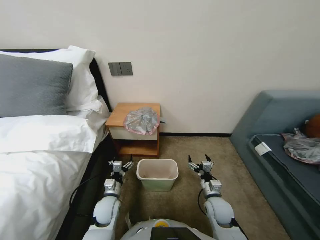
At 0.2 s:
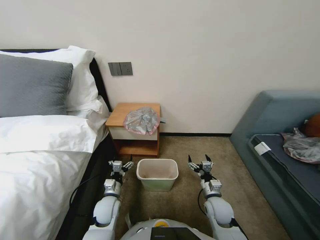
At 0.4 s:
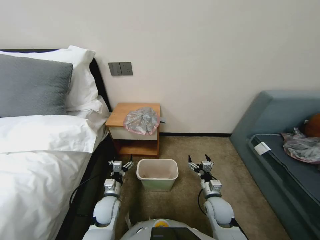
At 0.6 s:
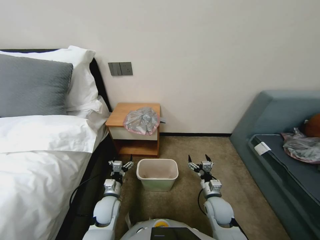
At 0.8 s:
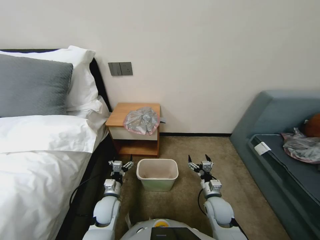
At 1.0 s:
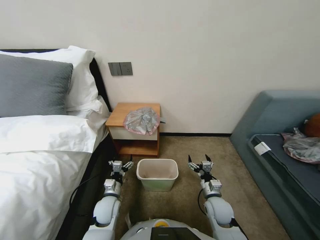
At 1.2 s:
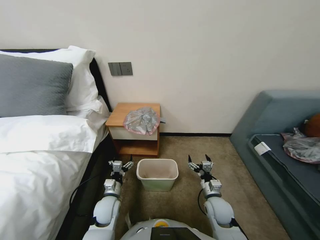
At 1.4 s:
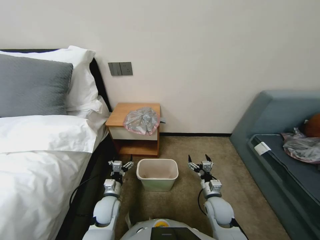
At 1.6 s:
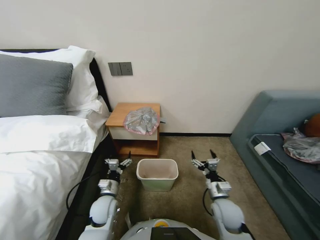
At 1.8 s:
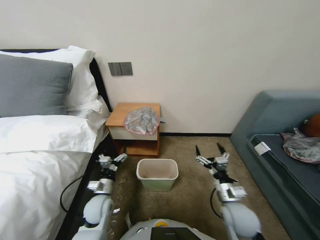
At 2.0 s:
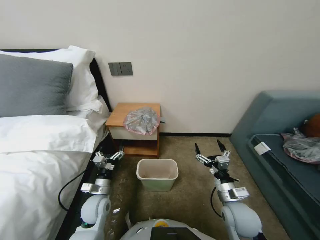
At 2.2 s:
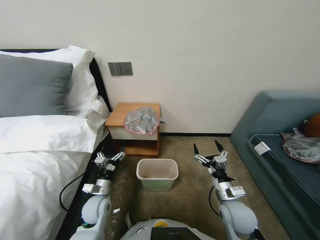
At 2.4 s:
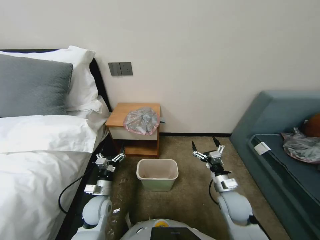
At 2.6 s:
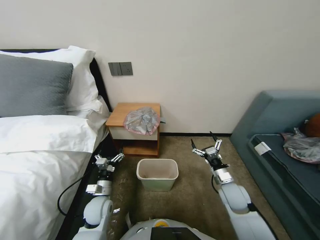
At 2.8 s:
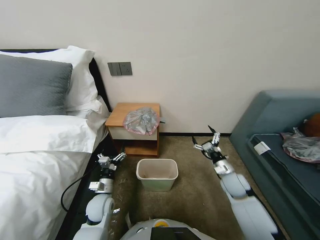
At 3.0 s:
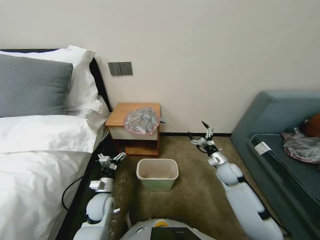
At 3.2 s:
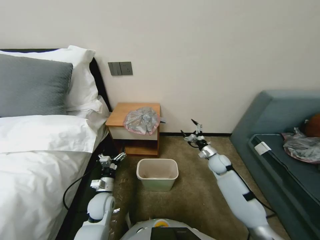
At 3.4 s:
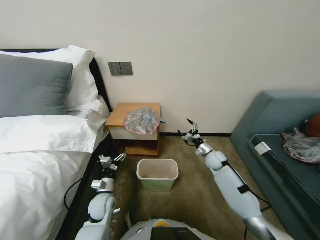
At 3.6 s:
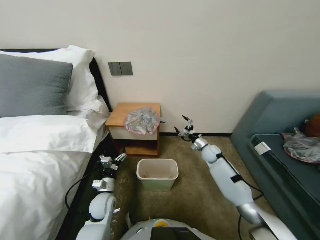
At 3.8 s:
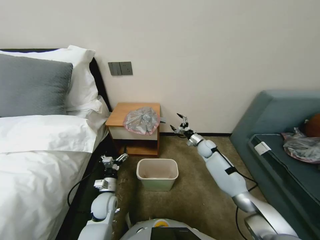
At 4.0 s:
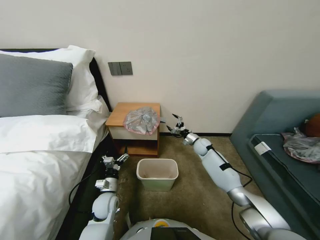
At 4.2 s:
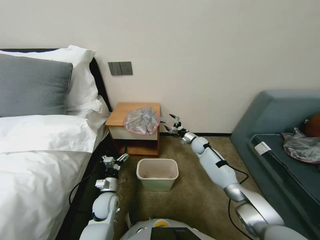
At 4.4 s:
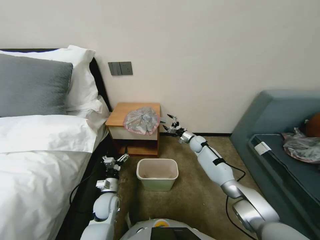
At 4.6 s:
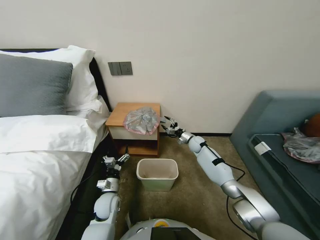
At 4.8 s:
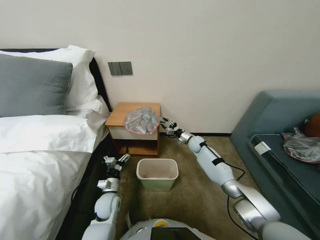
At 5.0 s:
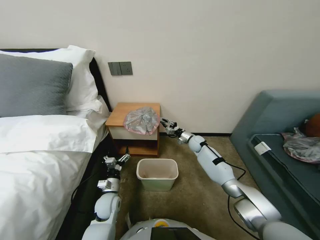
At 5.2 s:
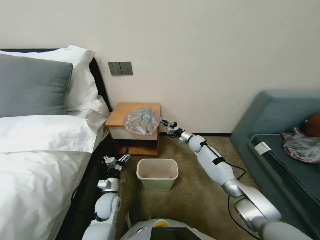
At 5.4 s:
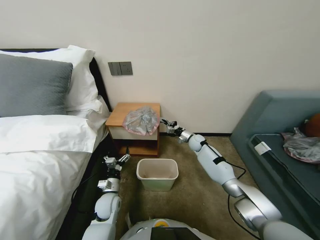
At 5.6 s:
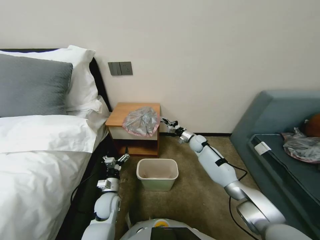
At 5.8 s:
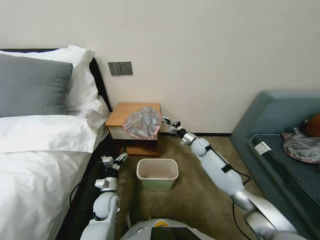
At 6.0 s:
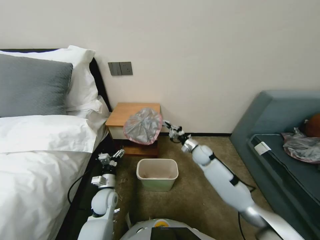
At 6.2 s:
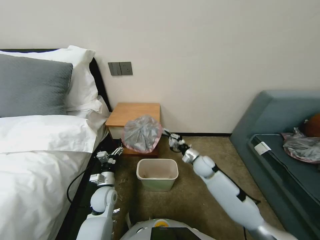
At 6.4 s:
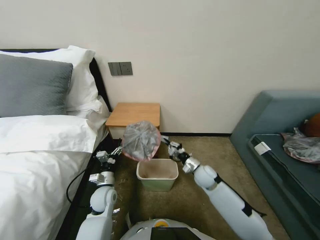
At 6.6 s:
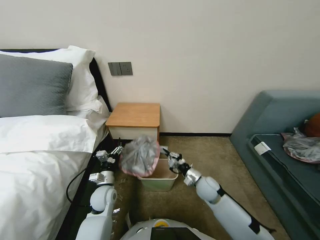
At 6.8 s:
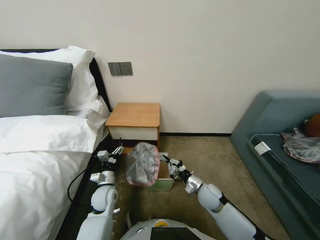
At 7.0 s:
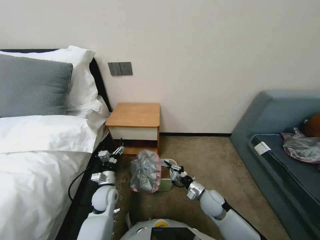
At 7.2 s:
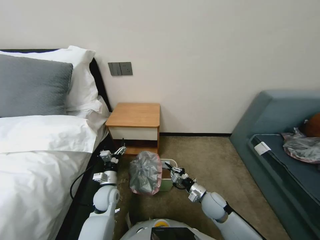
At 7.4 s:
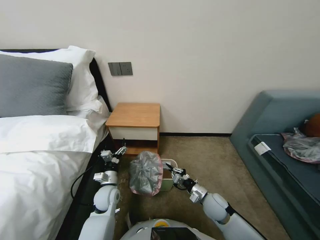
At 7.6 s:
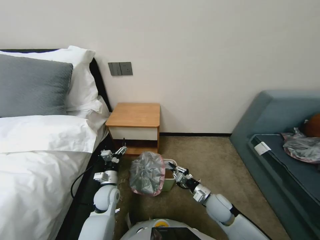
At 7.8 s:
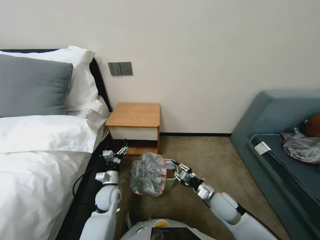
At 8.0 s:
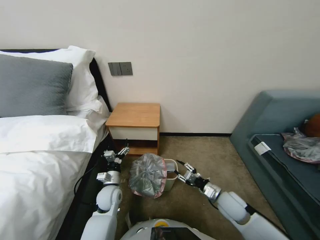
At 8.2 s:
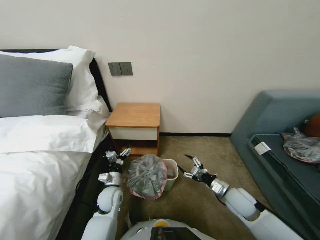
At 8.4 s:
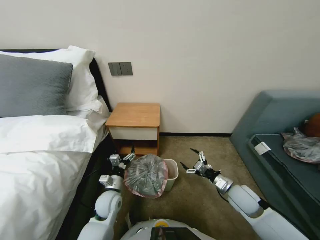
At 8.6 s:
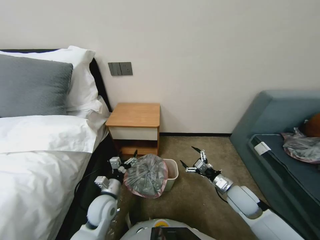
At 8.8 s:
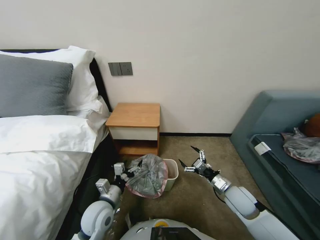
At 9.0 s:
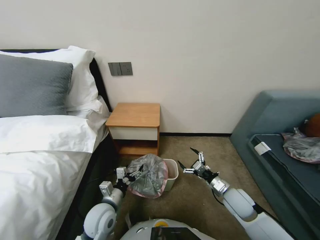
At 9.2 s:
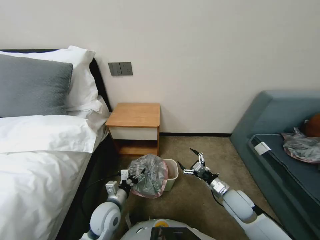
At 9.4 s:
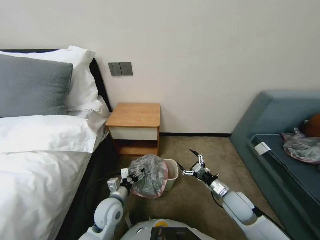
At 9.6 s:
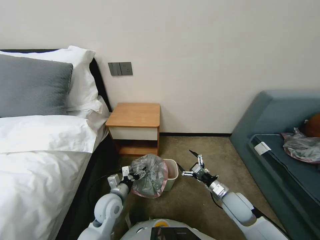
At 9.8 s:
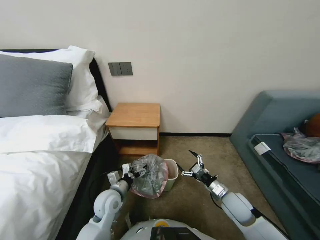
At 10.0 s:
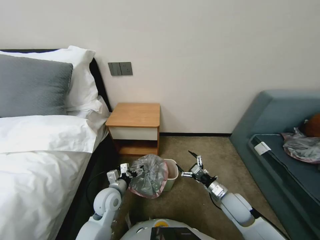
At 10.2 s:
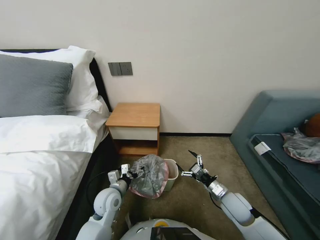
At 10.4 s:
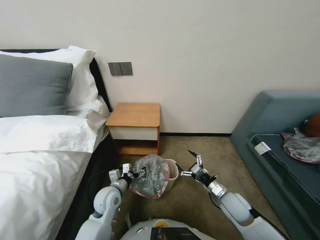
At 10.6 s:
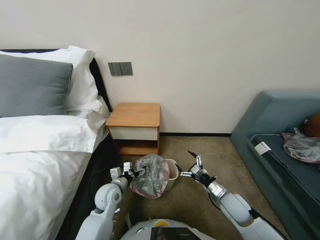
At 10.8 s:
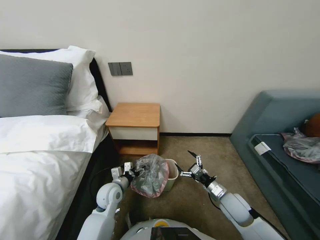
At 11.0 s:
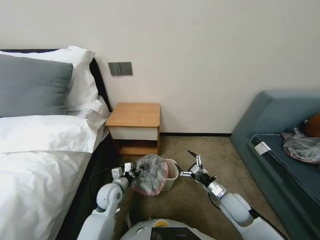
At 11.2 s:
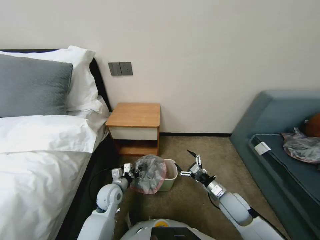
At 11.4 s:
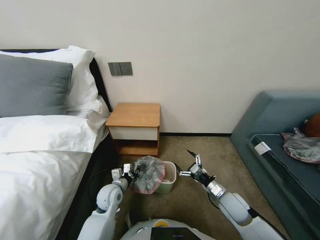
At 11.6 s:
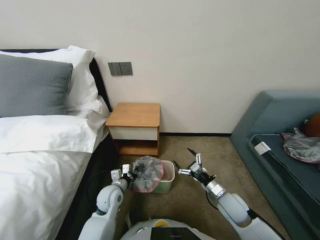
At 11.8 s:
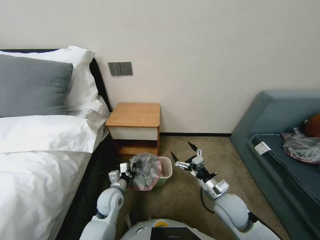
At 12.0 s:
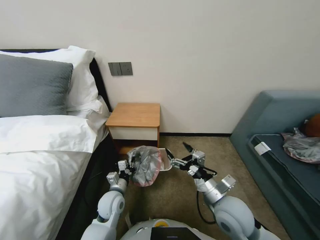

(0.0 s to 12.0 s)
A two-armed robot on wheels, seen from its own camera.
Task of the whole recording: Pick up the garbage bag from the table and place it over the trash can.
1.6 s - 3.0 s: The right gripper goes approximately 15 cm forward and to the right.
3.0 s - 4.4 s: The right gripper travels forward by roughly 25 cm.
4.4 s - 6.0 s: The right gripper heads backward, covering about 10 cm, and closes up.
6.0 s - 7.6 s: The right gripper is displaced backward by about 25 cm.
7.6 s - 9.0 s: The right gripper shifts roughly 10 cm to the right and upward, and opens up; the left gripper travels backward and upward by about 10 cm.
9.0 s - 10.4 s: The left gripper heads forward, covering approximately 5 cm.
10.4 s - 12.0 s: The left gripper closes up; the right gripper heads upward and to the left, covering some 10 cm.

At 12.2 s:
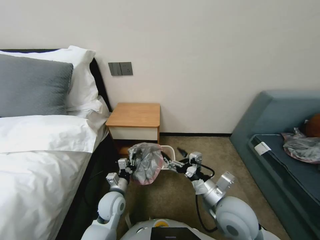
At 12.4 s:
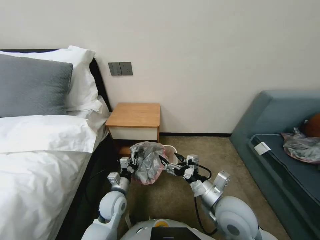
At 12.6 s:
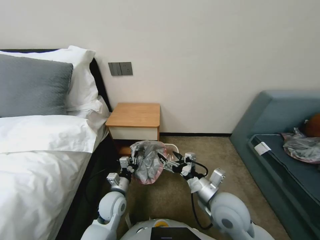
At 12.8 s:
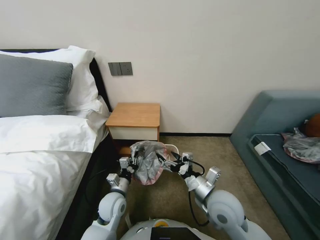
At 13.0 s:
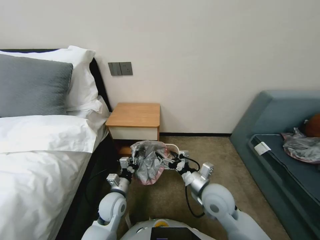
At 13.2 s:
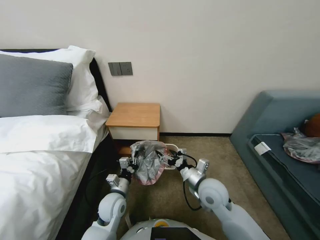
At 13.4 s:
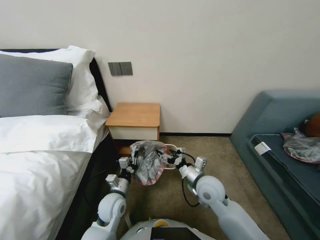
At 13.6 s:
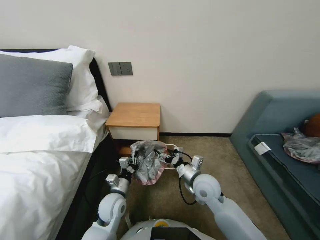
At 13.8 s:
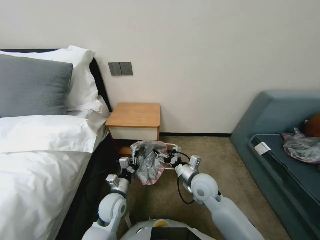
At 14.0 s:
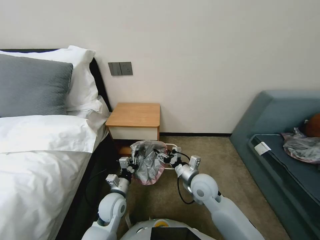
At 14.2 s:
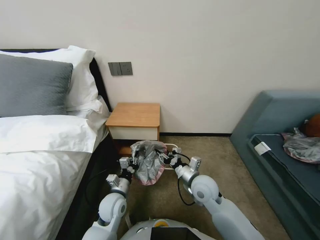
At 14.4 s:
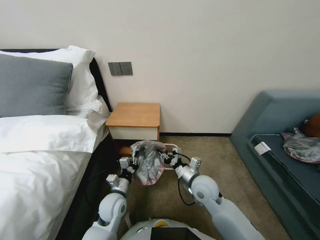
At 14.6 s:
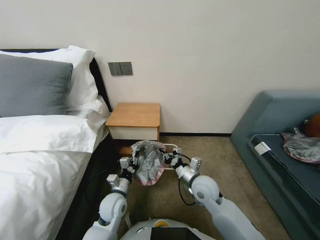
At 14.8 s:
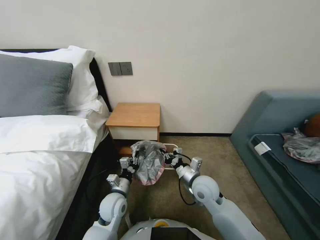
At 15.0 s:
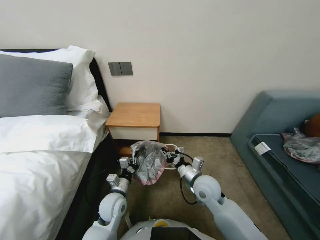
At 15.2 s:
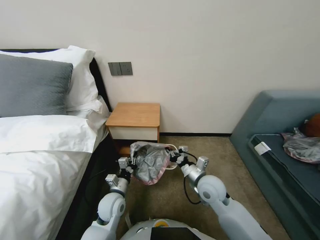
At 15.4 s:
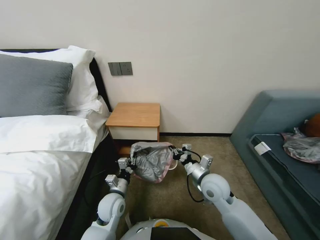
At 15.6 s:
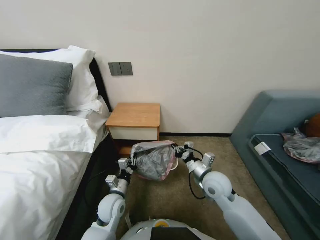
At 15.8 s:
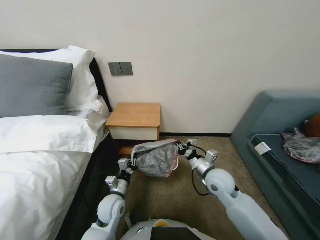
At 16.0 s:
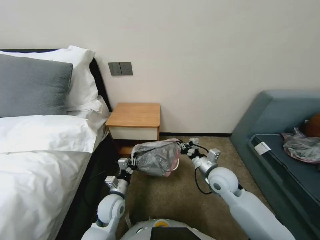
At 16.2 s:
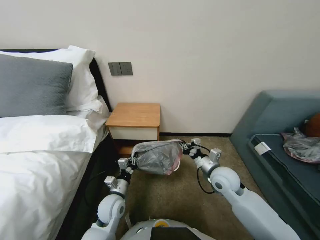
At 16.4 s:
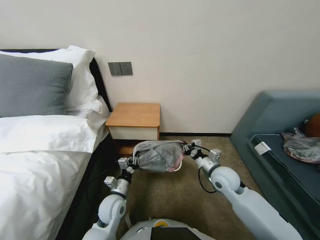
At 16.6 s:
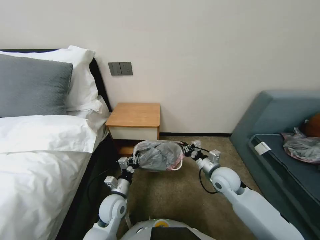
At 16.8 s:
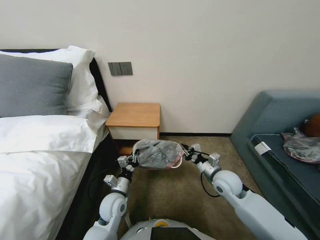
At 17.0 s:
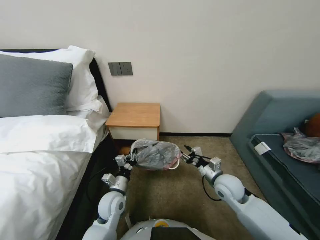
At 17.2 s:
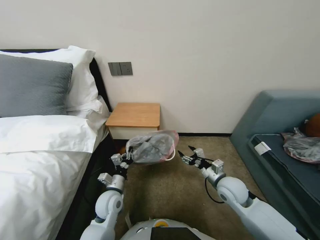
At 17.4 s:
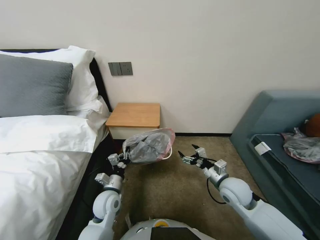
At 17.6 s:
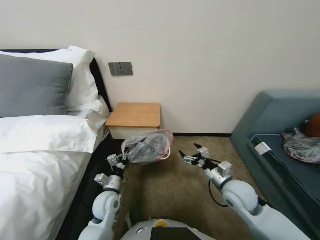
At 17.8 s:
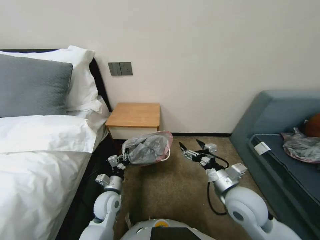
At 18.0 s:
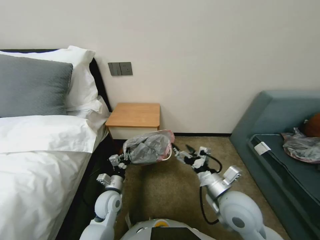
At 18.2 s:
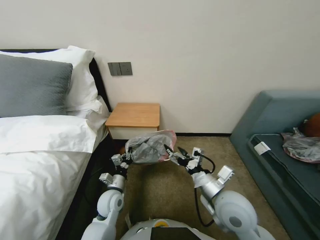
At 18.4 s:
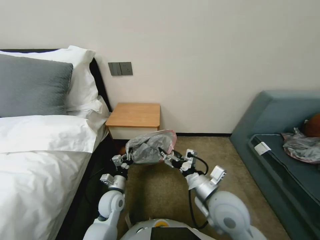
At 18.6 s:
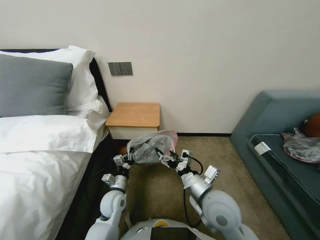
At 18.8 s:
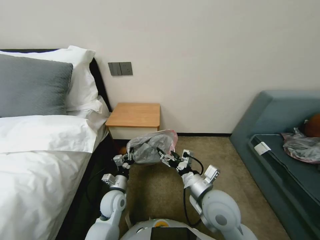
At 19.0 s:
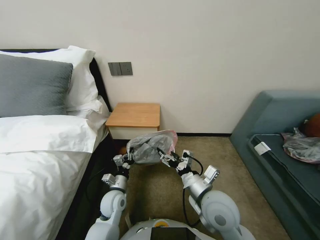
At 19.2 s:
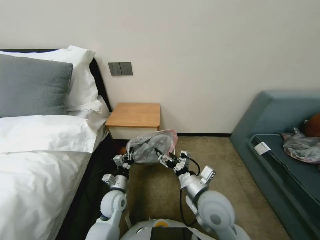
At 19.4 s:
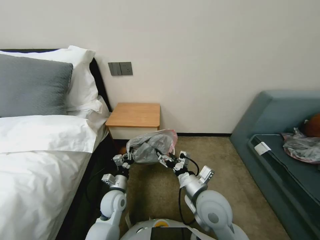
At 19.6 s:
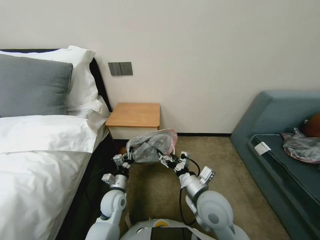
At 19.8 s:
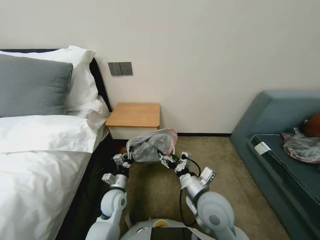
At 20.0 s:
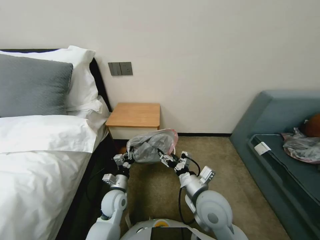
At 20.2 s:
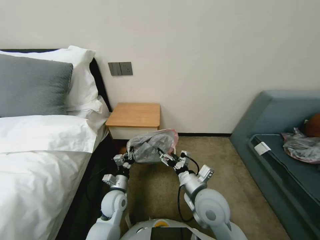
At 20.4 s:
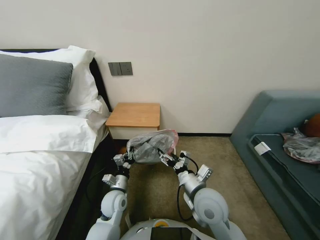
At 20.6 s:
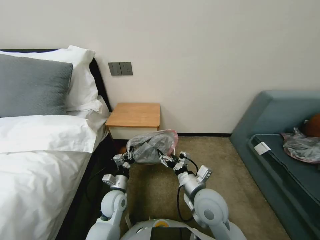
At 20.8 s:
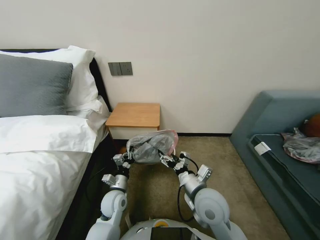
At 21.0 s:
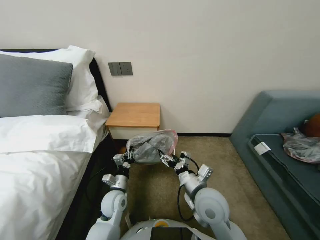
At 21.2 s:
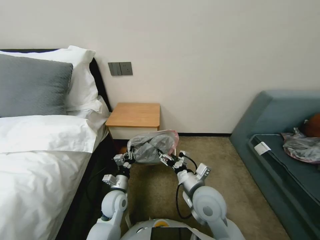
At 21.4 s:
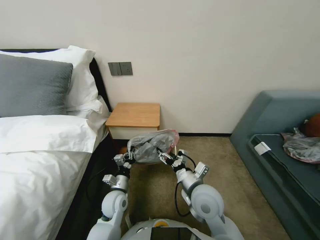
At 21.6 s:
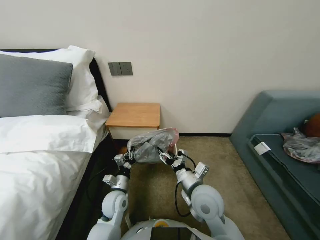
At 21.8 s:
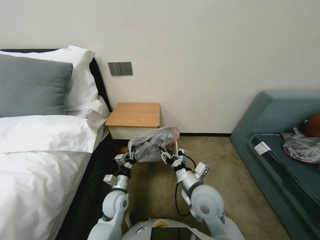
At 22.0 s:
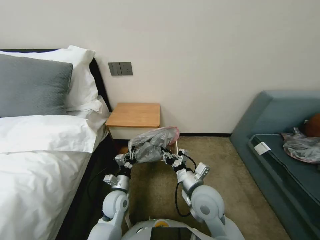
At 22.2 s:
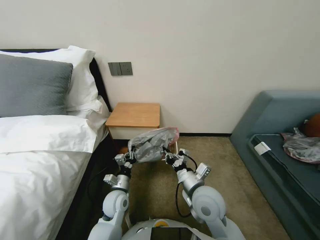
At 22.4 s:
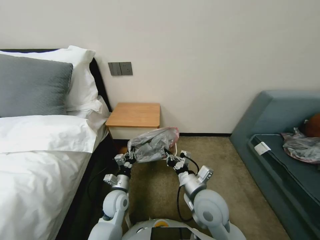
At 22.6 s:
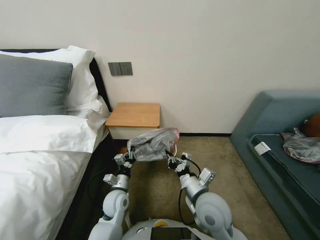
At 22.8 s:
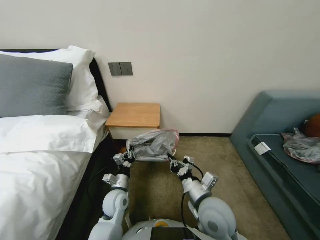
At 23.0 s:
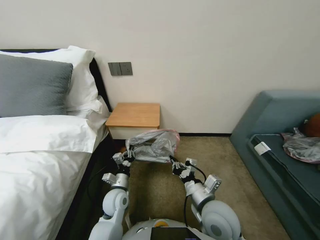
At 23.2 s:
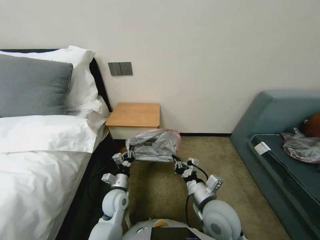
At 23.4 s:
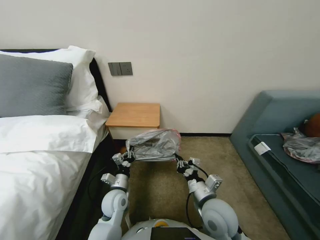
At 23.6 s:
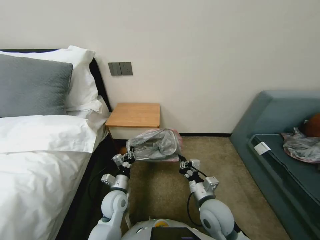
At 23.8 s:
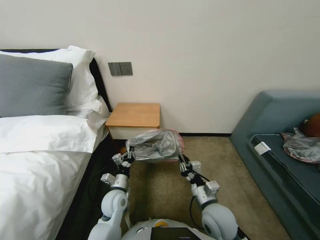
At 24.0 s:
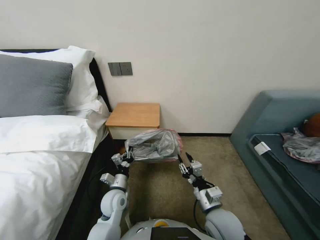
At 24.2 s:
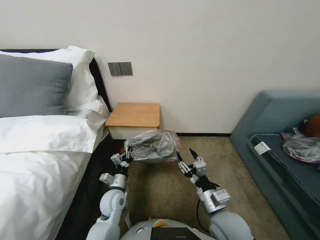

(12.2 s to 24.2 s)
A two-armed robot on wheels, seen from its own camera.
Task of the whole recording: Pick up the garbage bag from the table and place it over the trash can.
12.2 s - 13.8 s: The right gripper shifts about 10 cm forward and downward.
13.8 s - 15.2 s: The right gripper closes up.
15.2 s - 16.6 s: The right gripper moves to the right, some 10 cm.
16.6 s - 18.2 s: The right gripper goes roughly 15 cm backward, upward and to the left, and opens.
18.2 s - 19.8 s: The right gripper goes approximately 5 cm to the left.
19.8 s - 21.2 s: There are only small adjustments of the grippers.
21.2 s - 22.6 s: The right gripper closes its fingers.
22.6 s - 24.2 s: The right gripper ends up some 5 cm from where it was, and opens its fingers.
